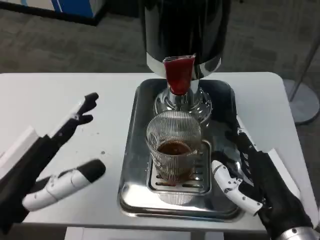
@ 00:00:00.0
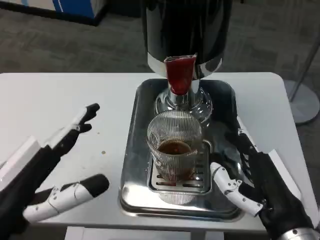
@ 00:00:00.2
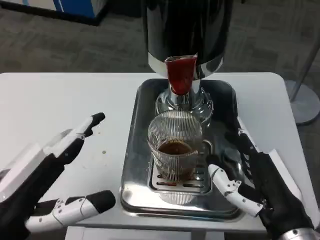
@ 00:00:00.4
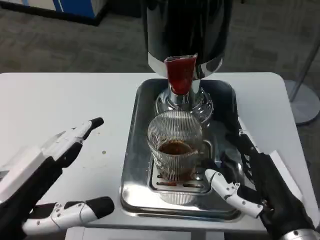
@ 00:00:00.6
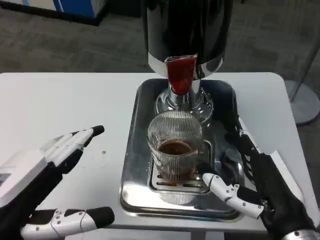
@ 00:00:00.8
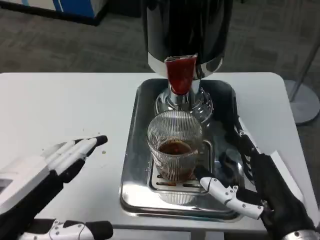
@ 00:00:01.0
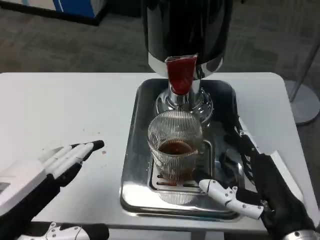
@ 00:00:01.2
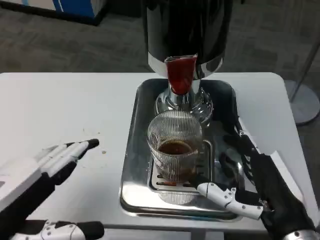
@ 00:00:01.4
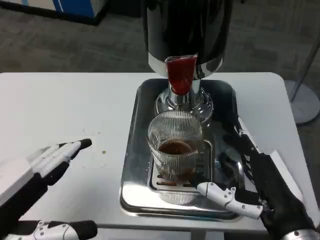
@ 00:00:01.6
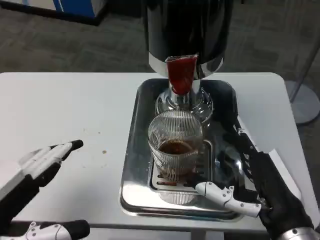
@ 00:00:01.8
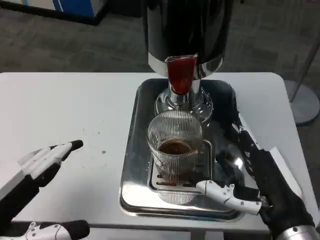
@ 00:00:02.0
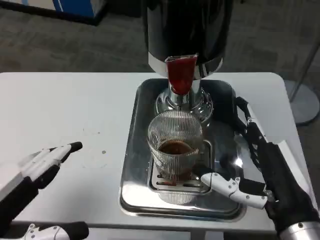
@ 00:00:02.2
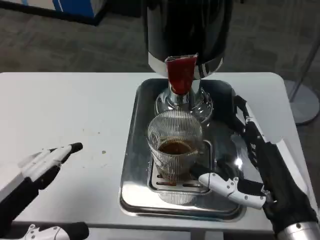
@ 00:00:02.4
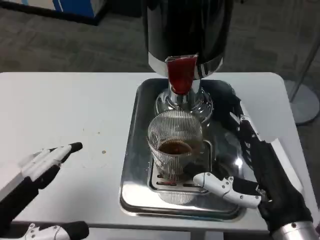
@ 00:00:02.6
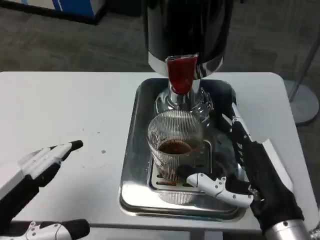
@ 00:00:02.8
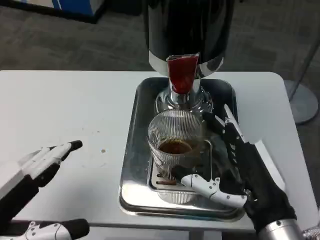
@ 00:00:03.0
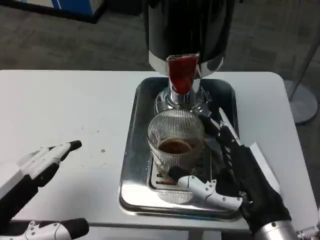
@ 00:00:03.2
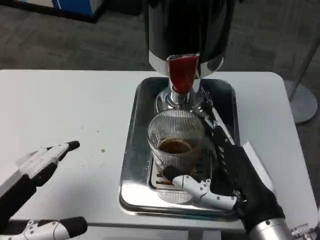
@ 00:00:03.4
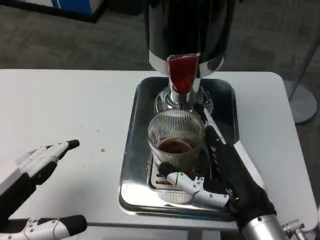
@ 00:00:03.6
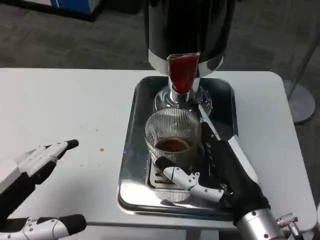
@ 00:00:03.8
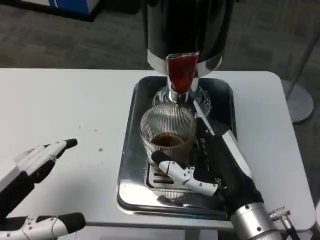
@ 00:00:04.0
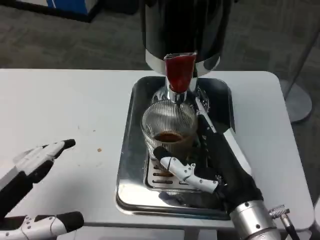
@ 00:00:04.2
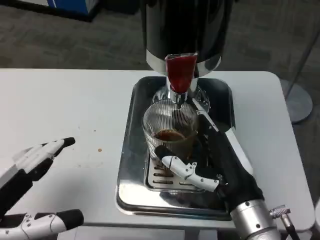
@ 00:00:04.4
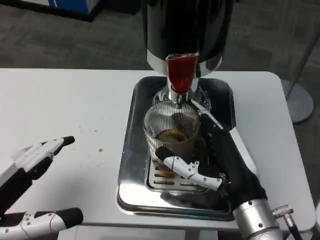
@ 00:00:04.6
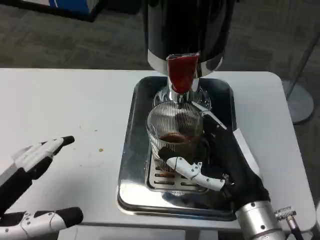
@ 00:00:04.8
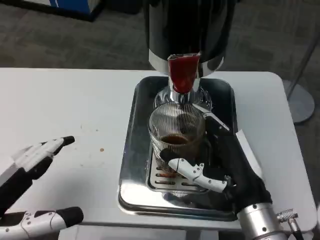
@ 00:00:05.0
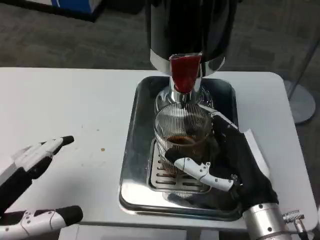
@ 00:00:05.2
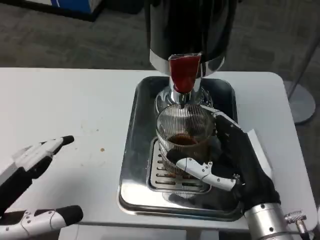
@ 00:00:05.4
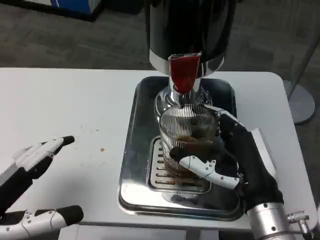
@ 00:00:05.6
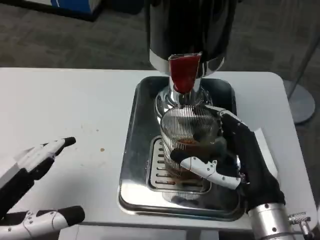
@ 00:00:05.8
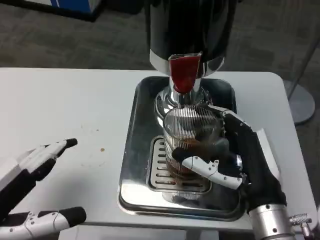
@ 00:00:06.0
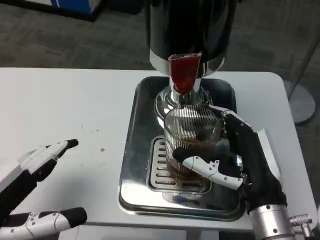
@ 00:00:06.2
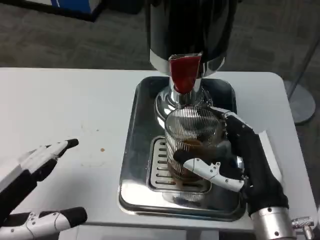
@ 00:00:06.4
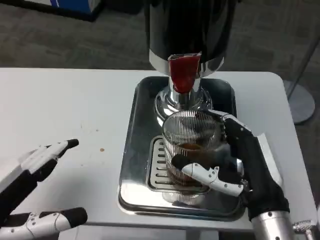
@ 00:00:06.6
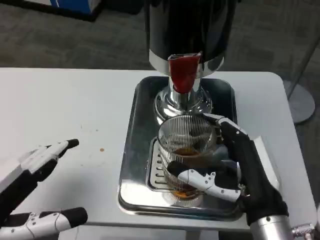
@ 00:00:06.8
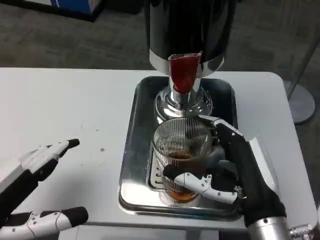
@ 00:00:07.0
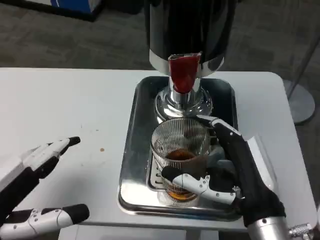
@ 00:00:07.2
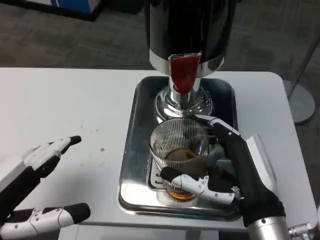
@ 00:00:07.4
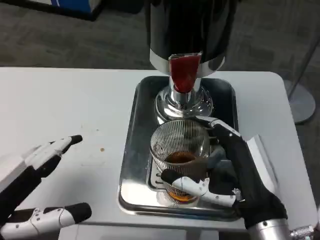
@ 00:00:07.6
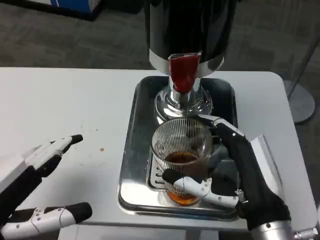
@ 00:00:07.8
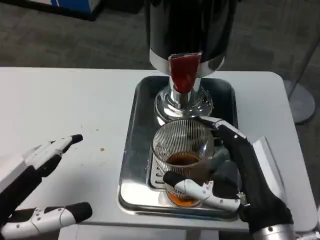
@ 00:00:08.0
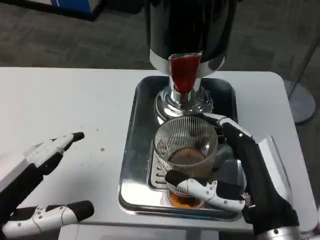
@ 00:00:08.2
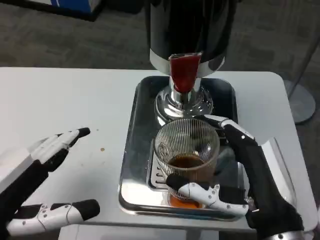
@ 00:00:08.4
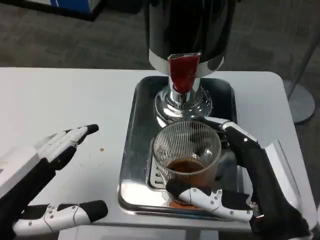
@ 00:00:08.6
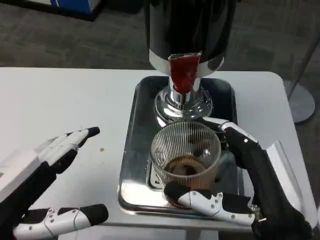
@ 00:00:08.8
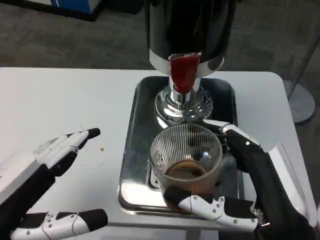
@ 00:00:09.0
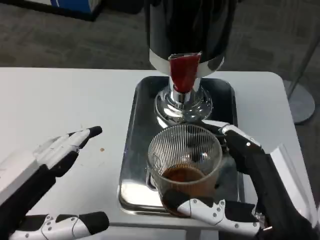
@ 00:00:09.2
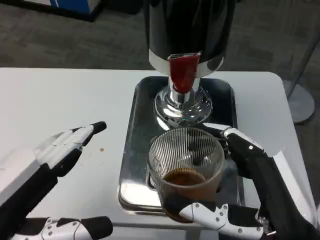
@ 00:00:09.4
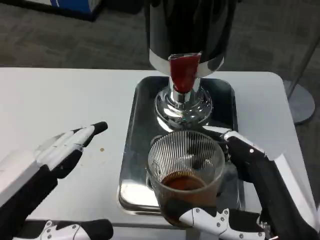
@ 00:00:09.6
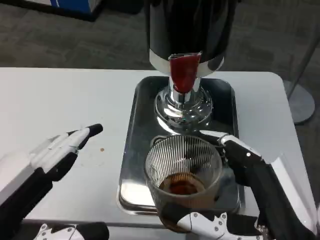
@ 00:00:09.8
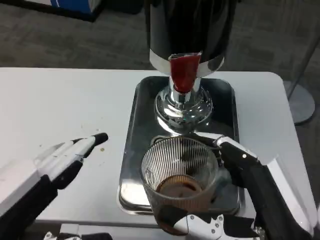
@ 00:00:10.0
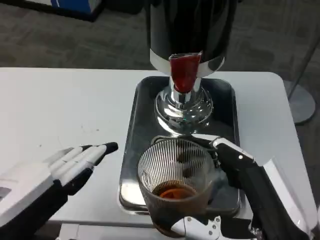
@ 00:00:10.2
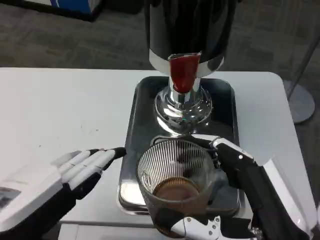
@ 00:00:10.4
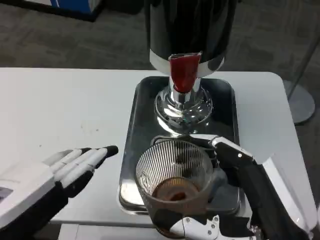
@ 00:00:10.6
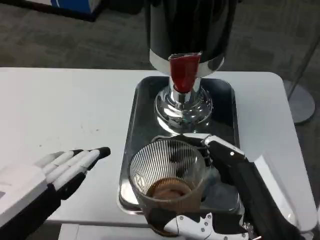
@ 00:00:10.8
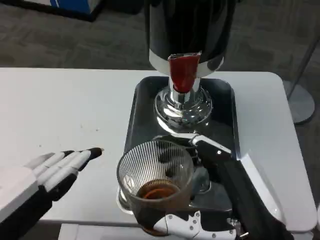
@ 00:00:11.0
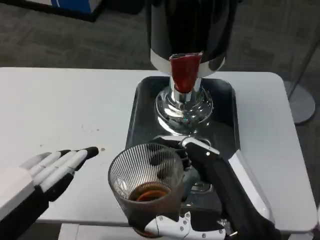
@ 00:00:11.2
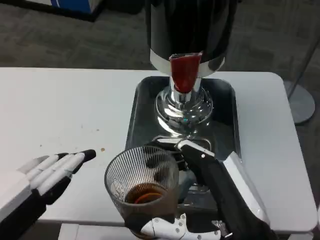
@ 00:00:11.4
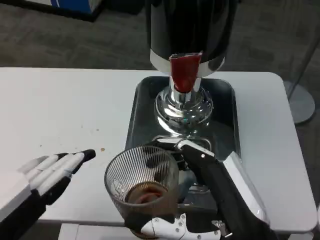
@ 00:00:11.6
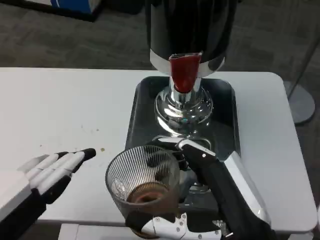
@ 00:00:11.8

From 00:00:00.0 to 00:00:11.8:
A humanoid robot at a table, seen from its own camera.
Task of the whole recording: Grasp the cup under the faucet to collect the drink, then remove the cup.
From 00:00:01.4 to 00:00:03.0: The hands make only small movements.
From 00:00:06.0 to 00:00:07.4: The hands make only small movements.
From 00:00:07.4 to 00:00:08.8: The right hand shifts approximately 5 cm backward.

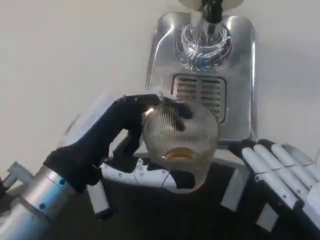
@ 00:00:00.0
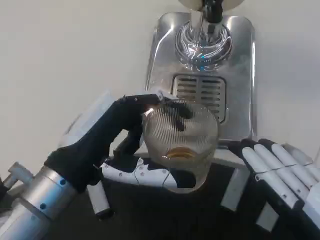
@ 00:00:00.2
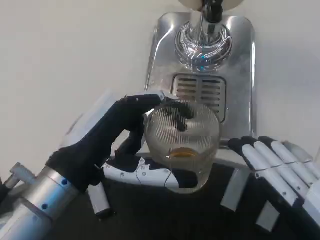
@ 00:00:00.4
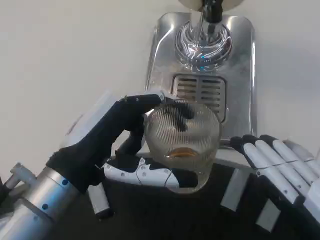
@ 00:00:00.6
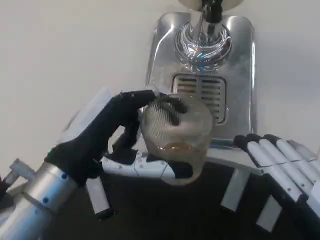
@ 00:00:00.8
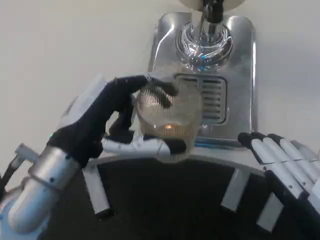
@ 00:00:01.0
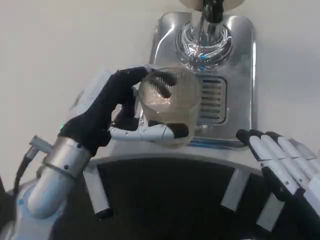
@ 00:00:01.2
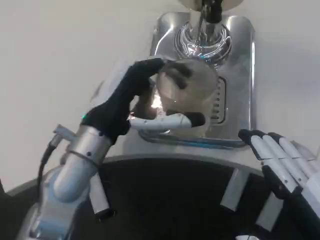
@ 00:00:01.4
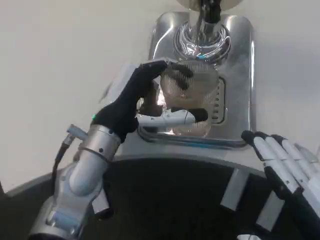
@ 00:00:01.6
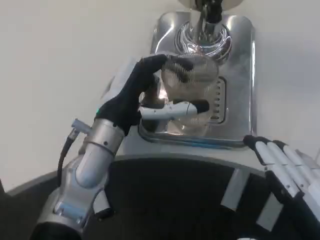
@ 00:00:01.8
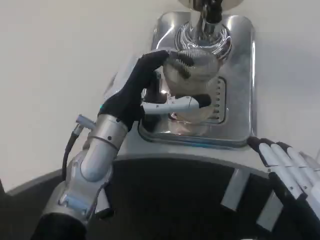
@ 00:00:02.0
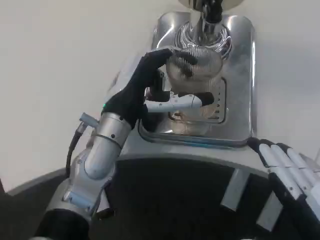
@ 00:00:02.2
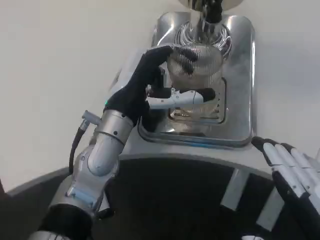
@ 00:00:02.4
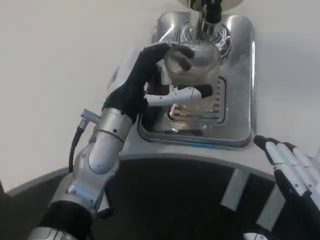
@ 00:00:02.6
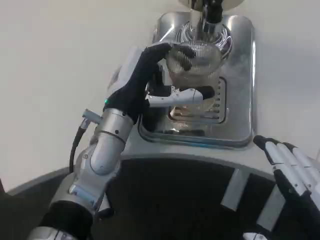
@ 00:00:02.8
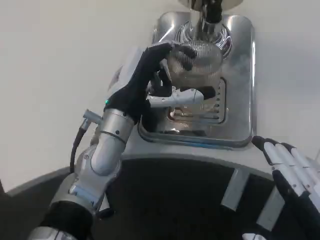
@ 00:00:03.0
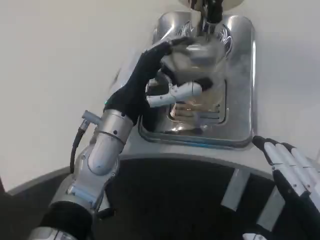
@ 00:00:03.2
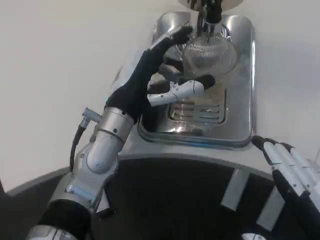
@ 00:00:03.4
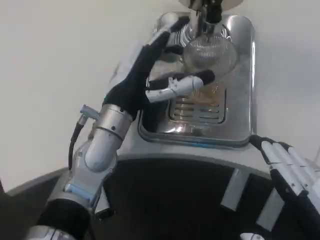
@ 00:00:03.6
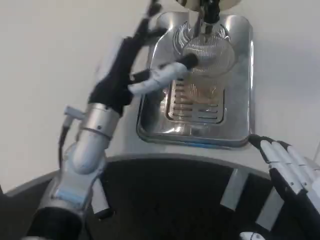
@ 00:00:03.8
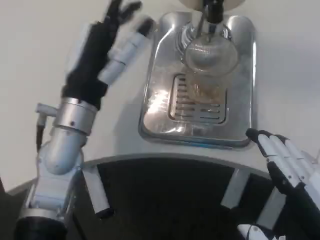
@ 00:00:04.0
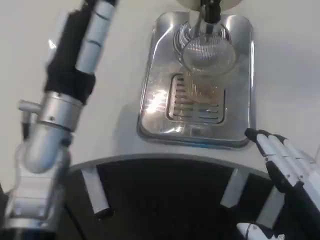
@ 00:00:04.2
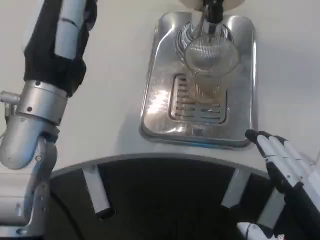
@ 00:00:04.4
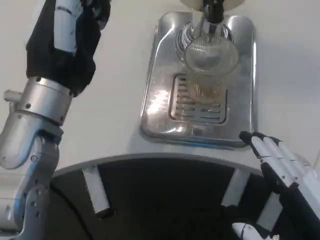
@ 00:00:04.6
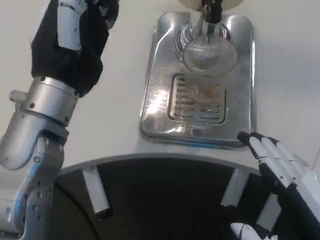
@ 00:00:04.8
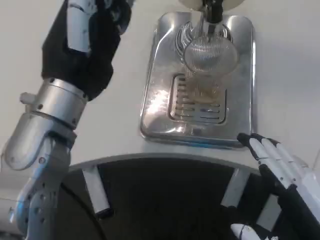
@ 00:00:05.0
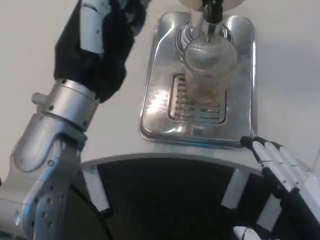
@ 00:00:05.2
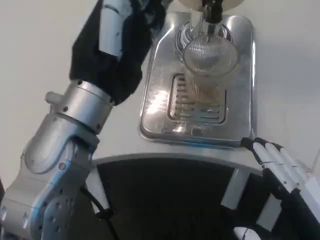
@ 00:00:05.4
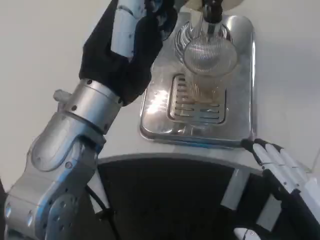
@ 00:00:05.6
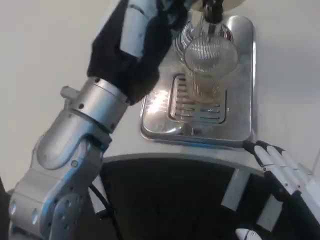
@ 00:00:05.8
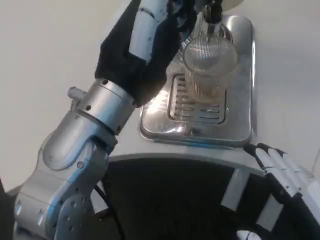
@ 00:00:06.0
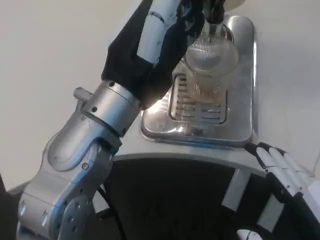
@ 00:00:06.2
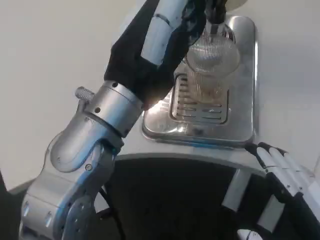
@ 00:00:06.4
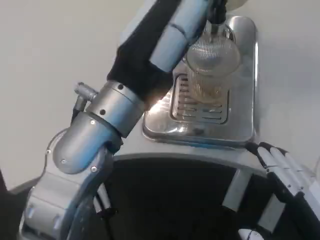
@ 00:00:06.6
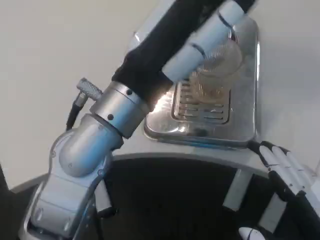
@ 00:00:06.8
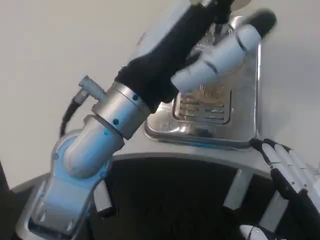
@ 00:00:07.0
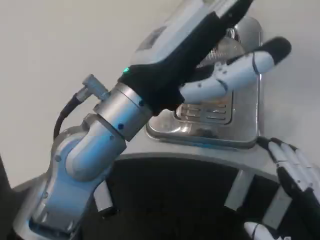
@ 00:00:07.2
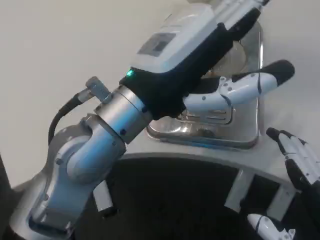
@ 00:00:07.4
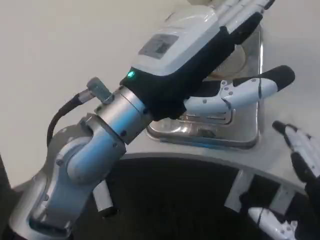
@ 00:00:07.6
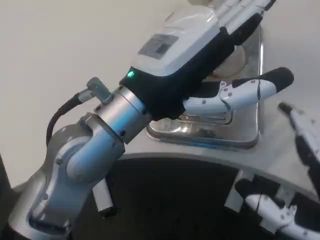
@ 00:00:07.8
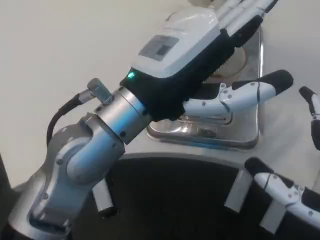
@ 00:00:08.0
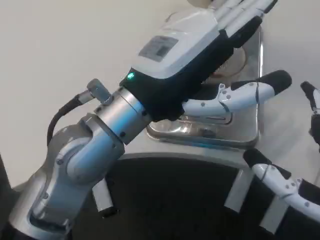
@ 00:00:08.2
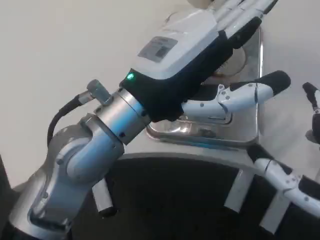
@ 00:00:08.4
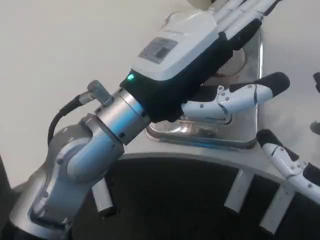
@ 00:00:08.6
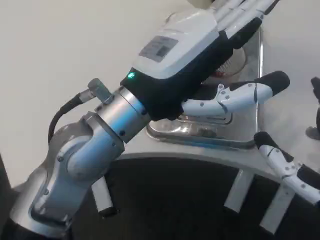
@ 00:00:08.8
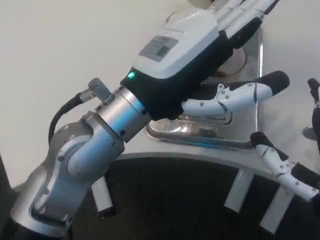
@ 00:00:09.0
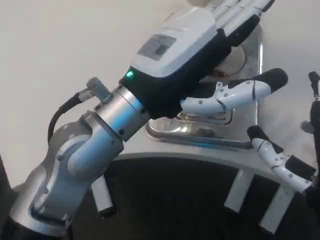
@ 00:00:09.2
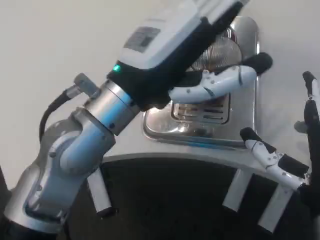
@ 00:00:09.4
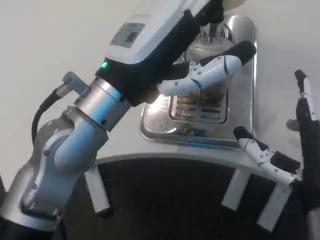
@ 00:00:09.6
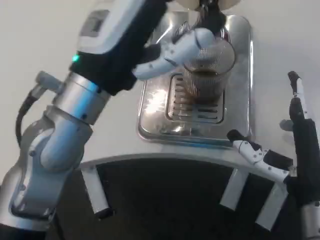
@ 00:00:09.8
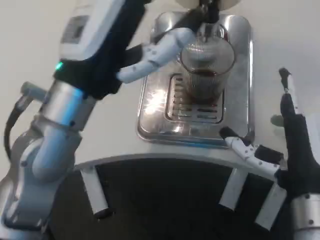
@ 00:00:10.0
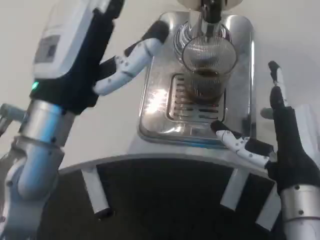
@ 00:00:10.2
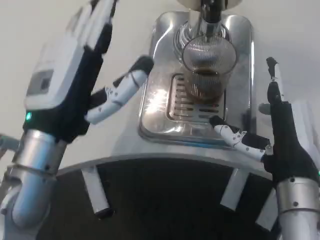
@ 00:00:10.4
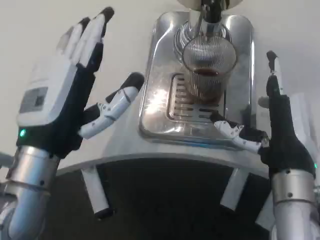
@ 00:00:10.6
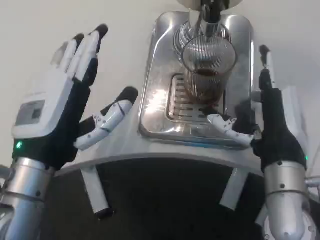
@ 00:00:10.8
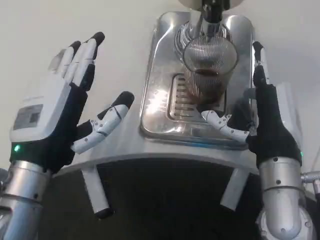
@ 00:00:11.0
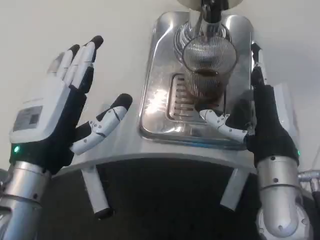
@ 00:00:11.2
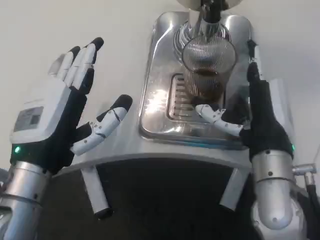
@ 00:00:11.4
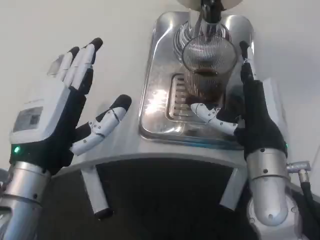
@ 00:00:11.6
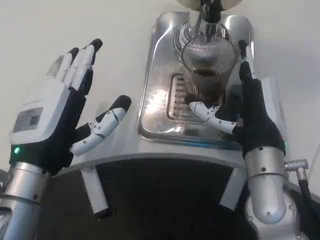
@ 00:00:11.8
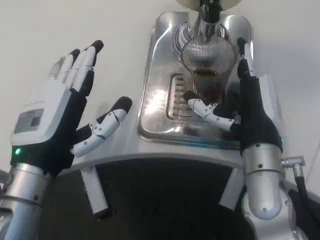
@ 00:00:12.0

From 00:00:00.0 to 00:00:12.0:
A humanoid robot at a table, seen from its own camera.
Task of the whole recording: Grasp the cup under the faucet to collect the drink, then remove the cup.
From 00:00:00.0 to 00:00:01.6: The left hand is displaced forward by roughly 10 cm.
From 00:00:01.6 to 00:00:03.0: The hands move only a little.
From 00:00:03.0 to 00:00:04.4: The left hand travels upward, to the left and backward by some 10 cm.
From 00:00:04.4 to 00:00:06.0: The left hand goes roughly 5 cm to the right.
From 00:00:07.6 to 00:00:09.0: The right hand heads forward, covering some 5 cm.
From 00:00:09.0 to 00:00:10.4: The left hand travels to the left and downward by some 10 cm. Meanwhile the right hand shifts approximately 5 cm forward.
From 00:00:10.4 to 00:00:12.0: The right hand moves approximately 5 cm.
